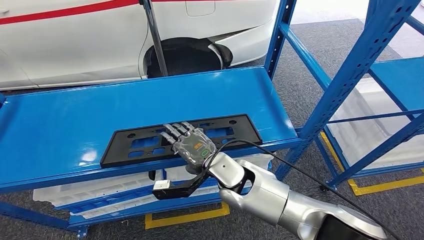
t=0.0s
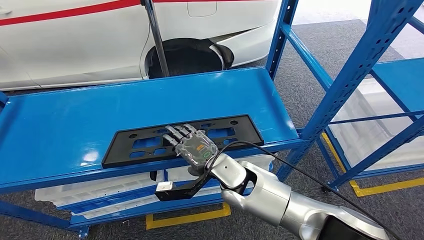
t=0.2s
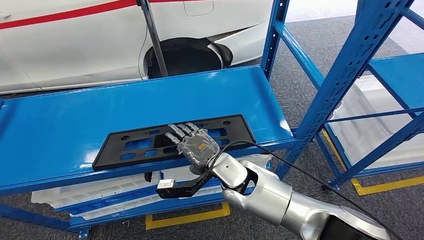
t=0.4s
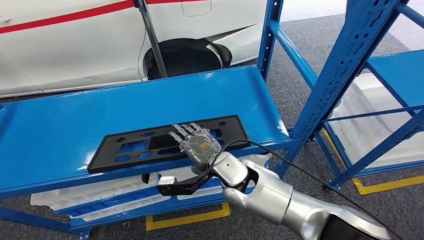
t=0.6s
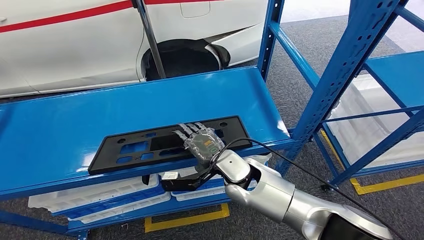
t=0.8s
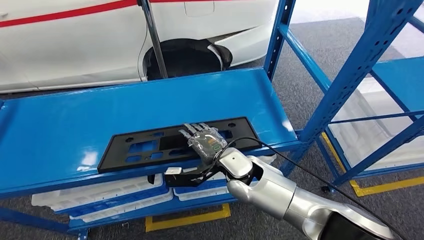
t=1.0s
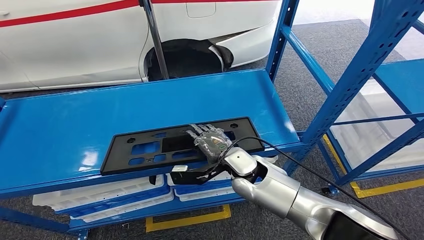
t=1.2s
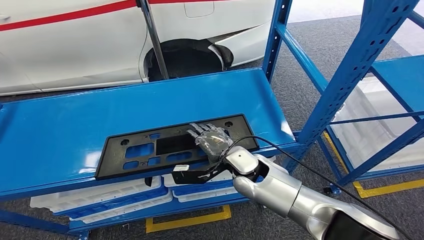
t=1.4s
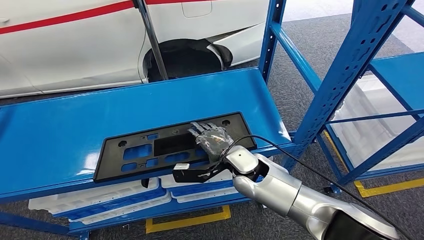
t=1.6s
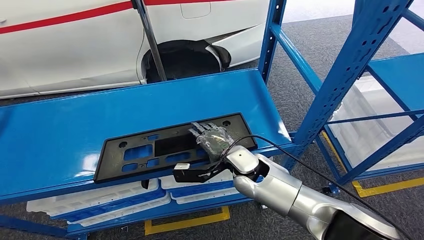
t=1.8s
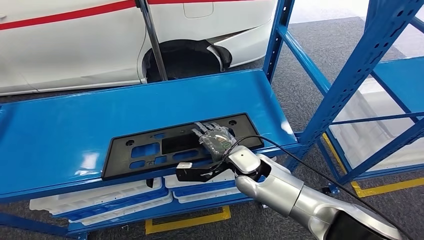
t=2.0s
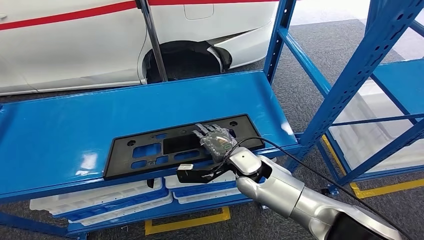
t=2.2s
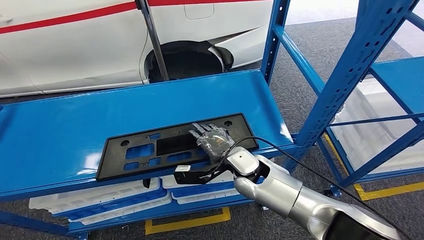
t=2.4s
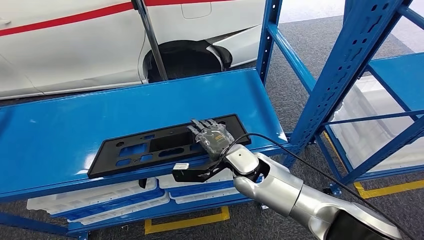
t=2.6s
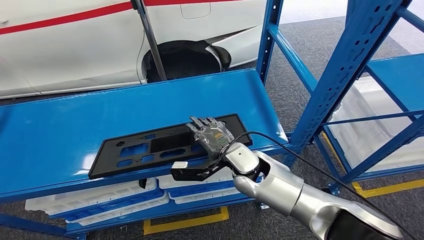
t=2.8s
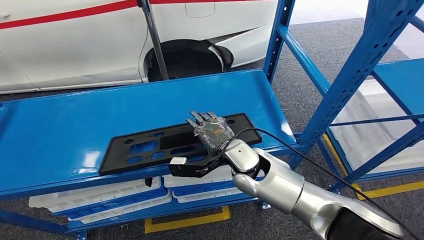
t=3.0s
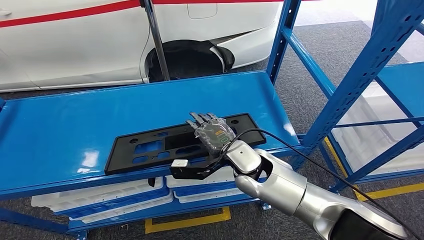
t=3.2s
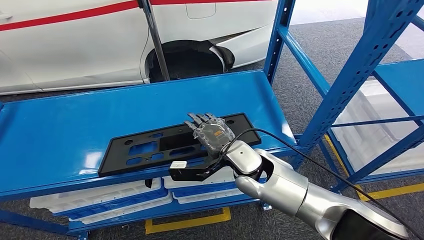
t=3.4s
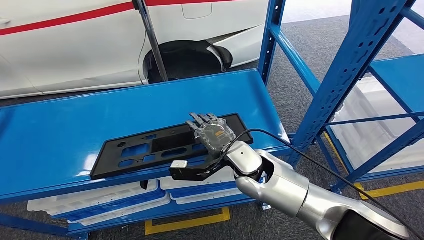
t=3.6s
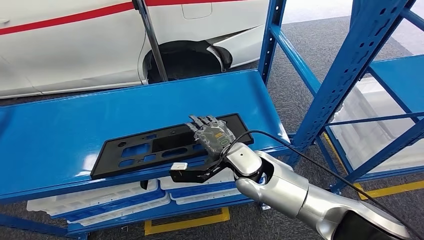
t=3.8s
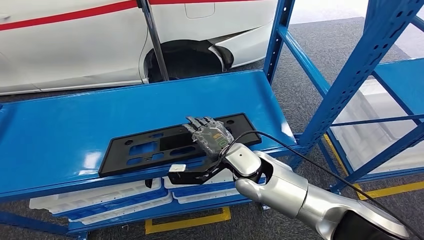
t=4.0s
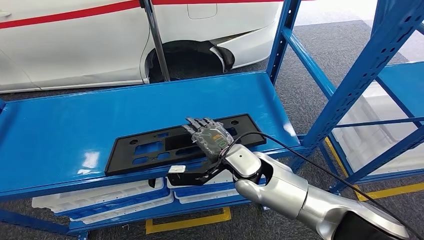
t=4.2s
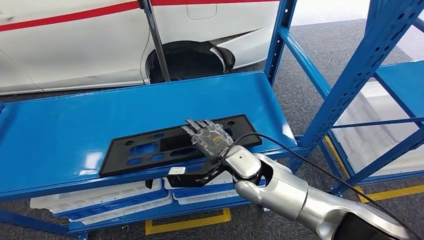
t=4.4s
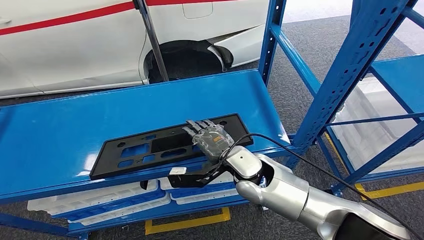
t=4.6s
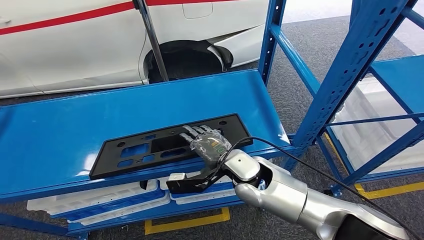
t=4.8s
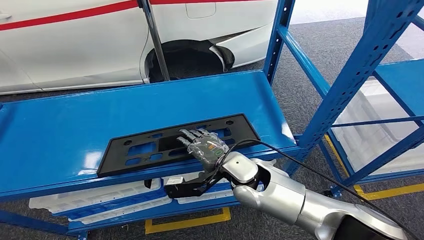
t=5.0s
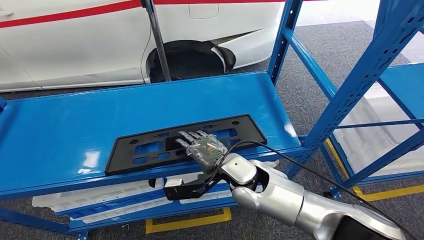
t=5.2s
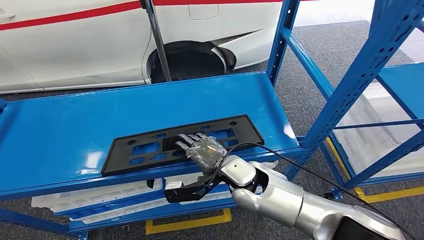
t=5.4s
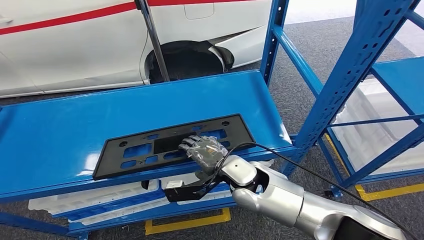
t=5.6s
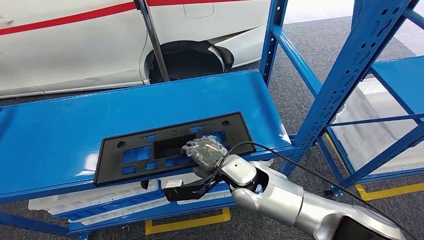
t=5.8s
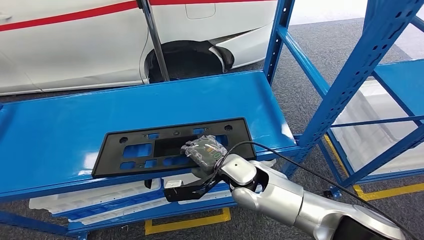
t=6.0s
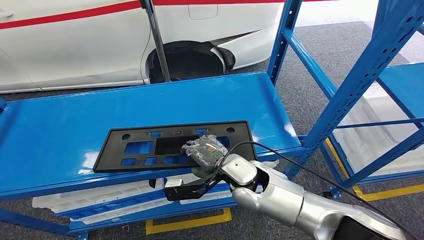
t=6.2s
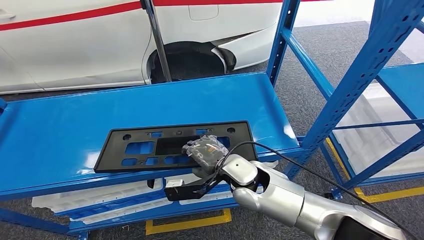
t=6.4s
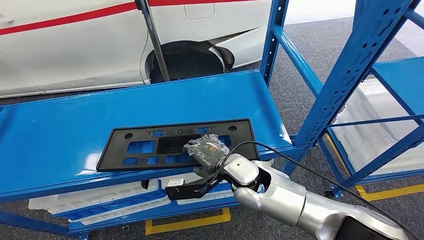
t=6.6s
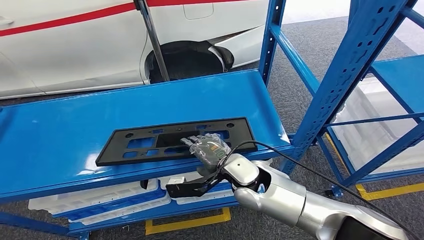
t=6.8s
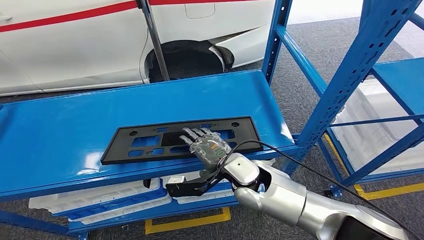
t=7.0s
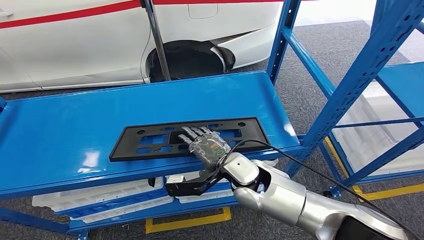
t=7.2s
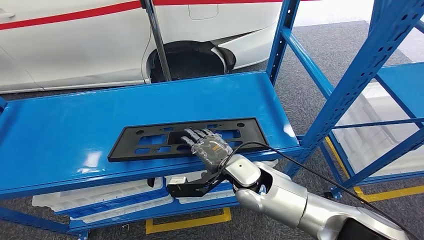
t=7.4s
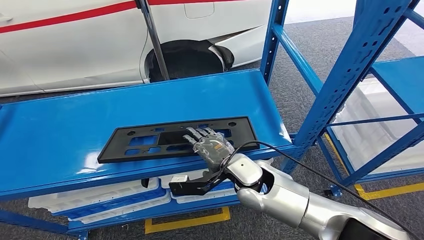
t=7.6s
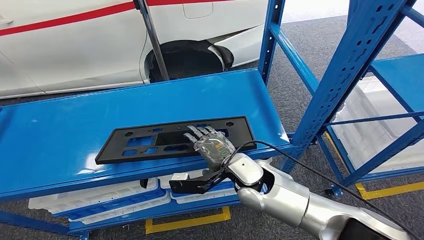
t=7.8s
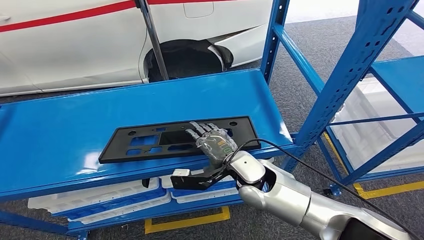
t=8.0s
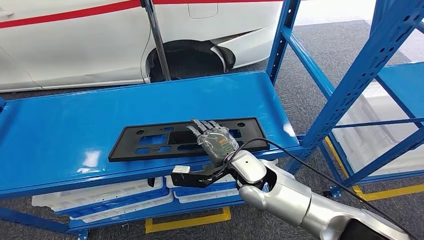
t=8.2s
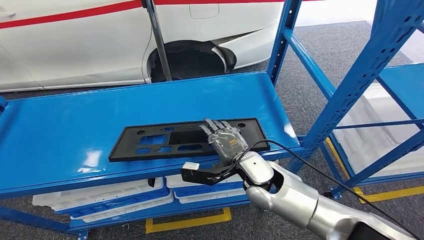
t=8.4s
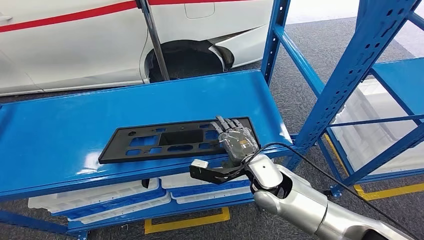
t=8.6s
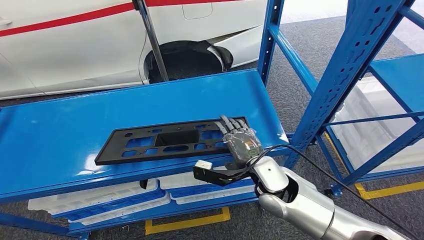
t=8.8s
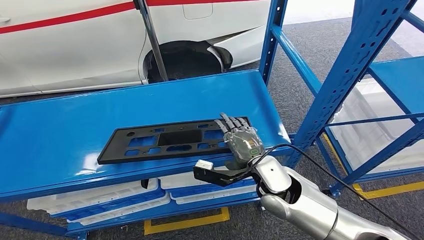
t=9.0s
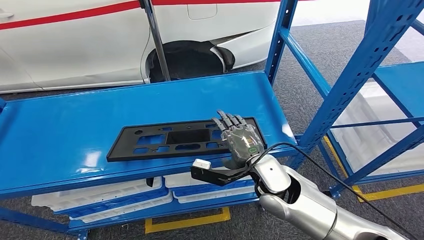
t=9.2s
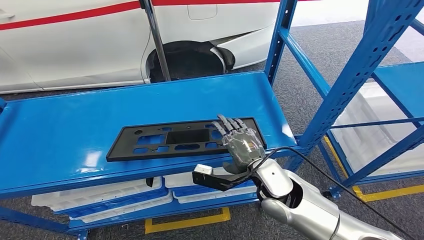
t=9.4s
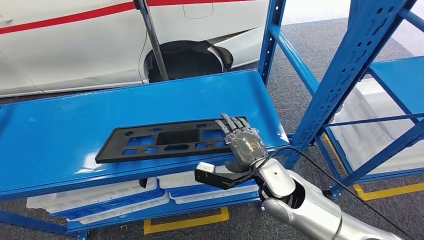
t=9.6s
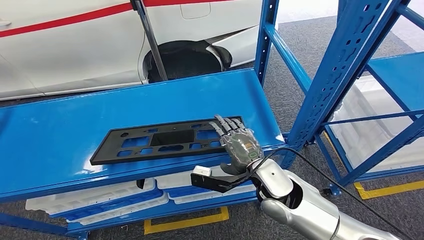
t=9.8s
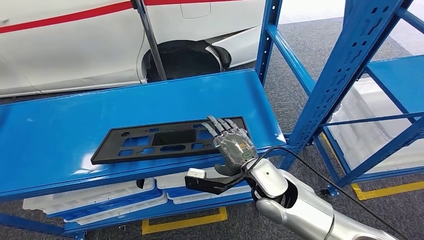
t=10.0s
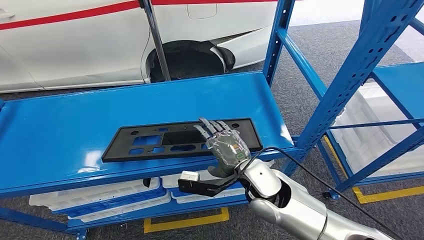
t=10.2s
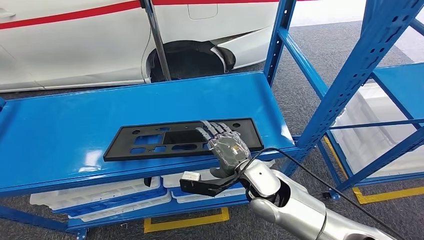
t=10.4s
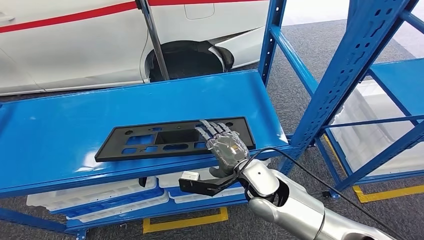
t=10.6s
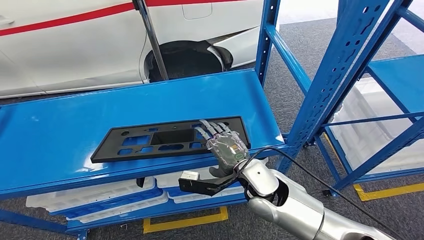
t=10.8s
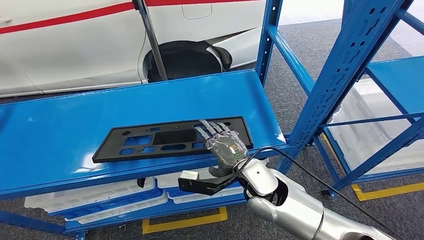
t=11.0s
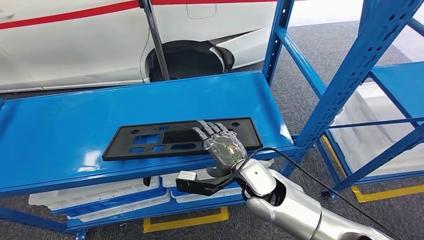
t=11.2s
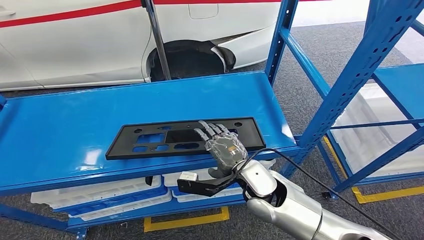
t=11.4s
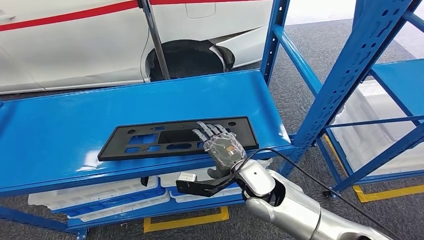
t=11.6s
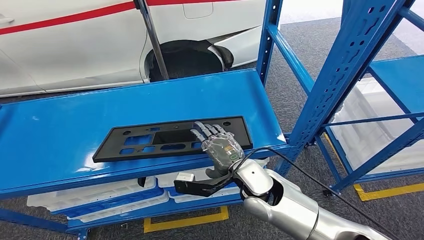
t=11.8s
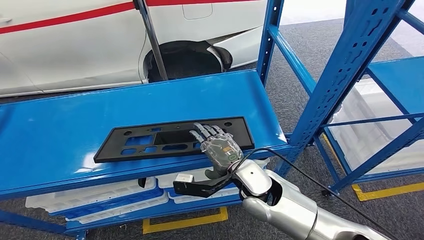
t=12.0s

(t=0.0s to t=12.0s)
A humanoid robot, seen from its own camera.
t=4.4s - t=6.0s: The hands stay close to where they were, moving slightly.
t=6.0s - t=7.6s: Both hands stay put.
t=7.6s - t=9.0s: The right hand shifts approximately 5 cm to the right.

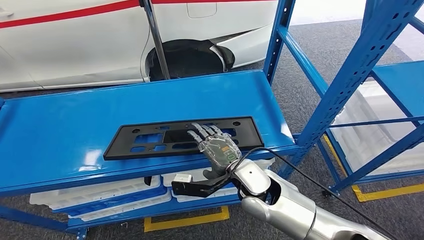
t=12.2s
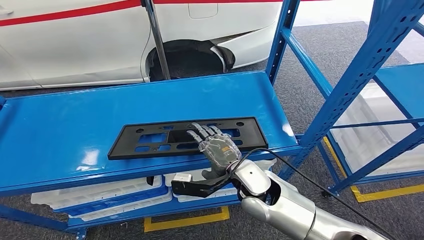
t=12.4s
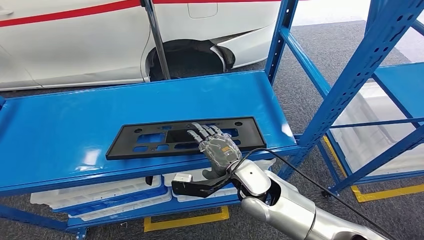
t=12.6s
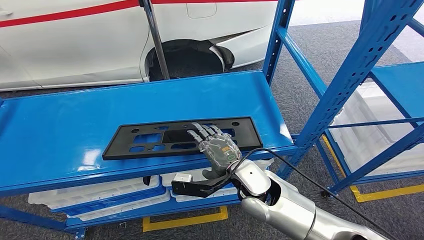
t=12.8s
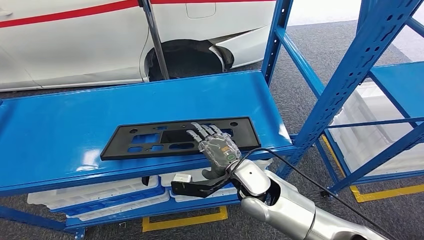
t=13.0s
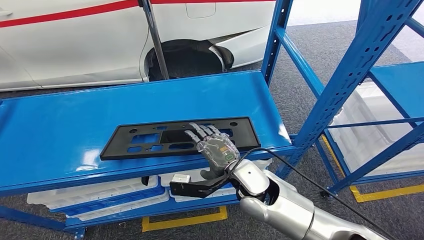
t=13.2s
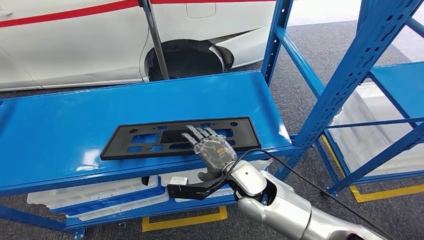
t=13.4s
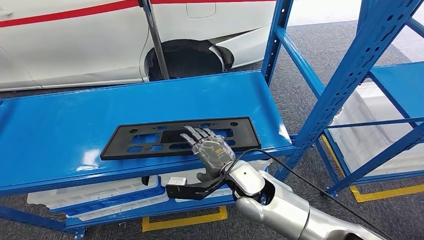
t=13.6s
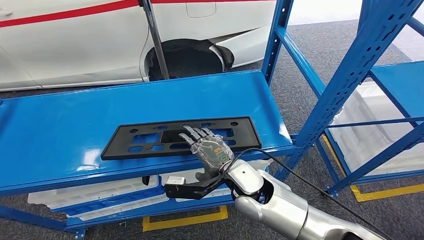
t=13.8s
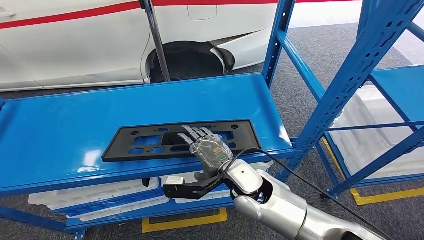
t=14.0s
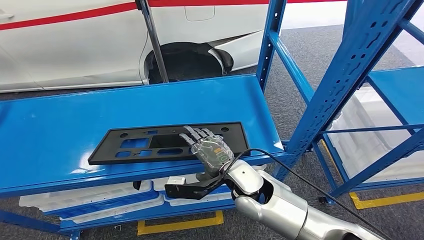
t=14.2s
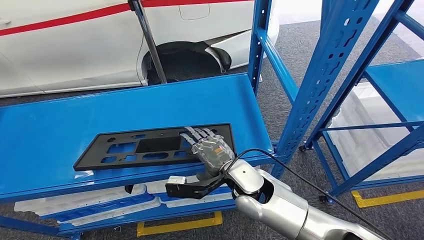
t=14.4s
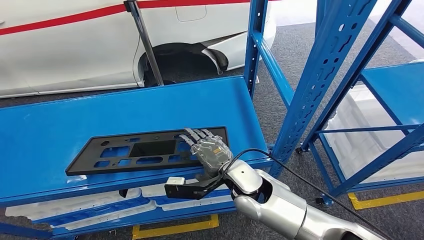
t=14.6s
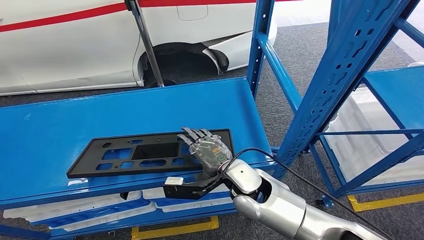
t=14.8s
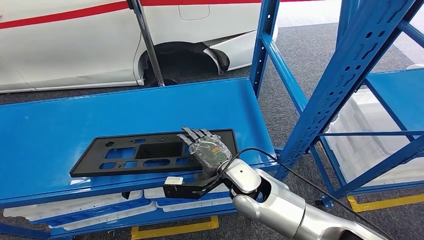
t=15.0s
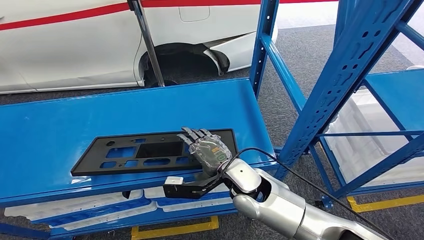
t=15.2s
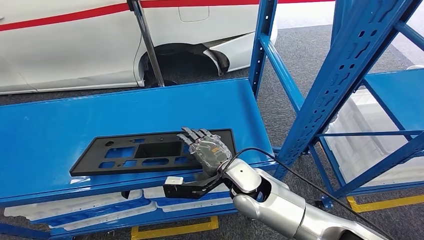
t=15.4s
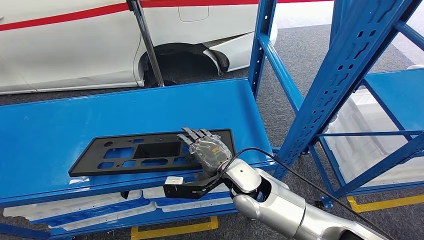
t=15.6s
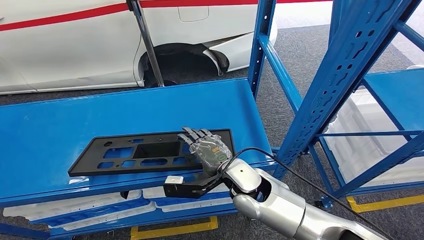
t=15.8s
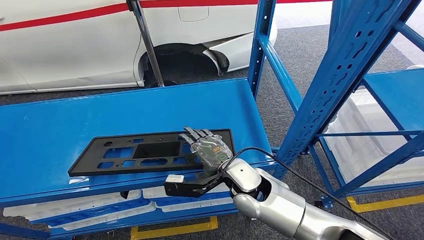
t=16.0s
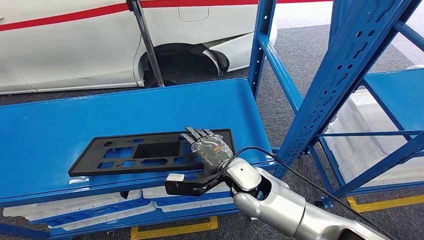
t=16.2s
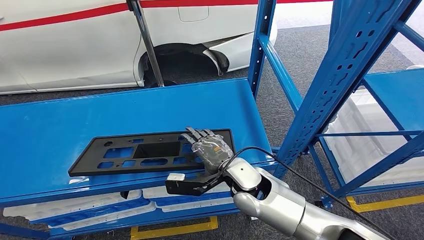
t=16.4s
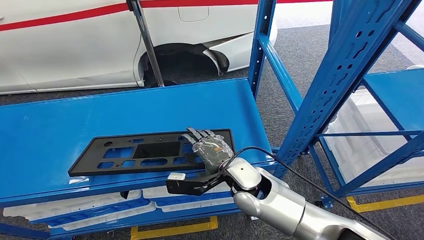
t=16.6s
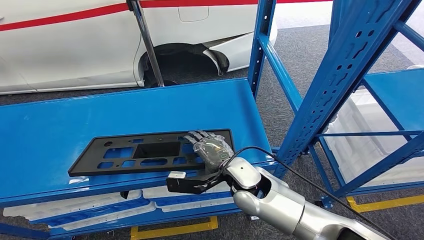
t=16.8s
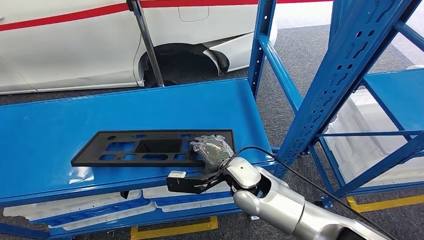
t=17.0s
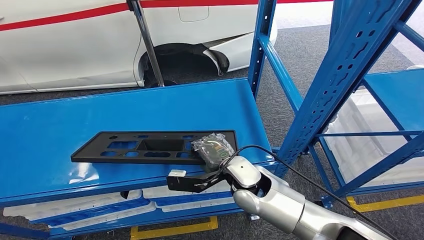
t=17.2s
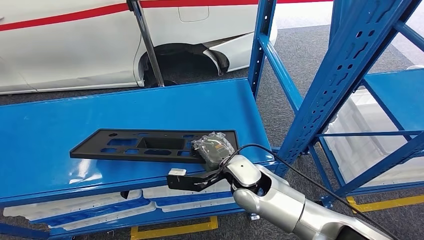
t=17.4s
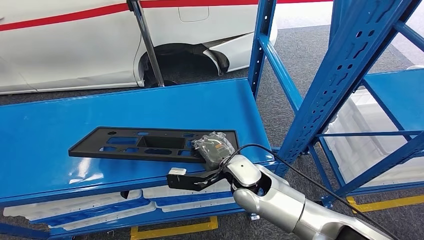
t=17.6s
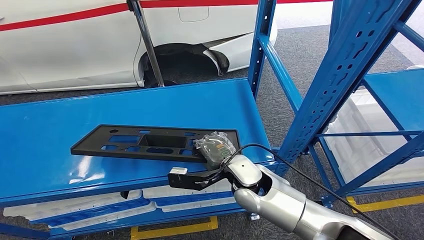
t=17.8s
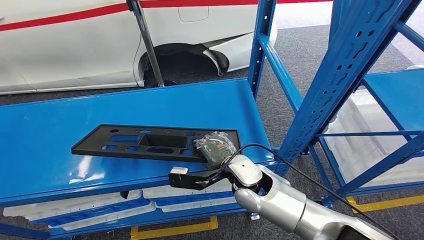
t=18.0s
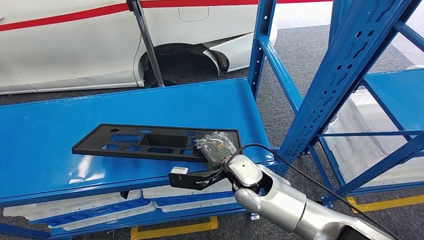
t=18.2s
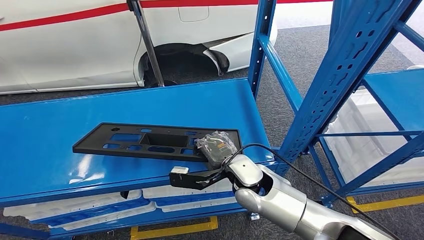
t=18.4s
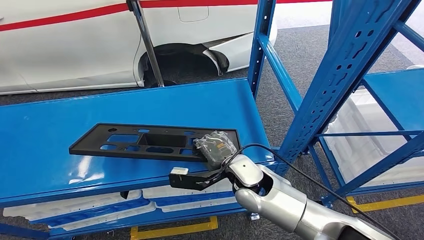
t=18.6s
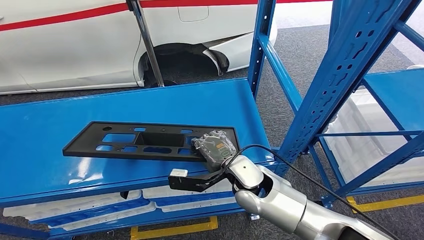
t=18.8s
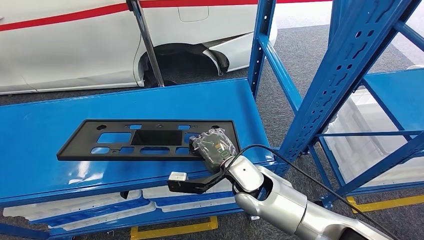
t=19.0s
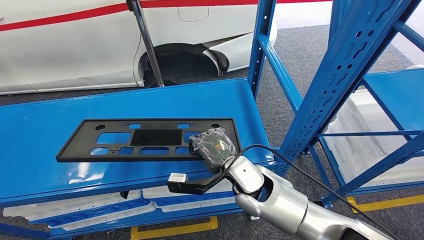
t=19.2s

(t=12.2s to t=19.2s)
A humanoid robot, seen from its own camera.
Step, t=12.2s - t=19.2s: Pick up the large material from the shelf.
t=12.2s - t=13.6s: The hands make only small movements.
t=15.0s - t=16.4s: The two hands keep their place.
t=16.4s - t=17.8s: Neither hand changes place.
t=17.8s - t=19.2s: The hands stay close to where they were, moving slightly.
